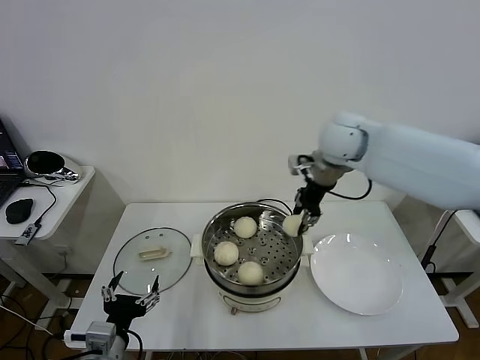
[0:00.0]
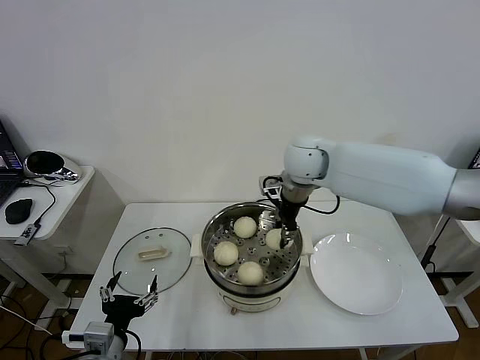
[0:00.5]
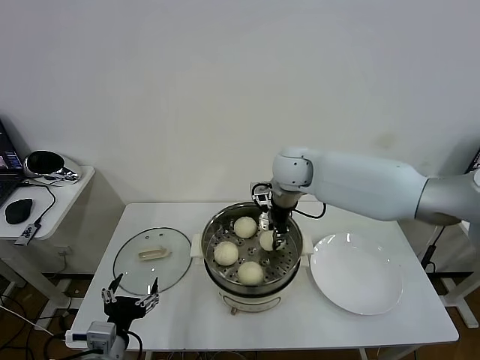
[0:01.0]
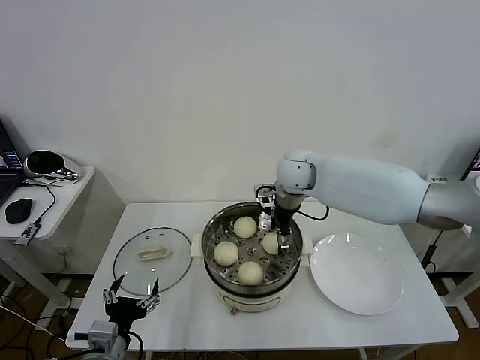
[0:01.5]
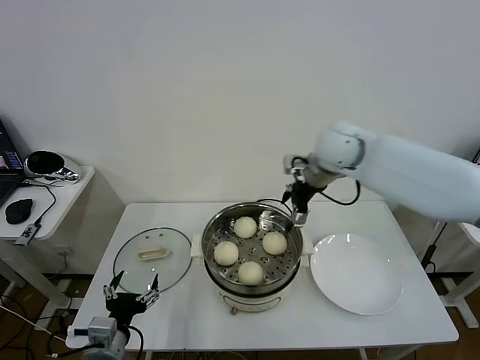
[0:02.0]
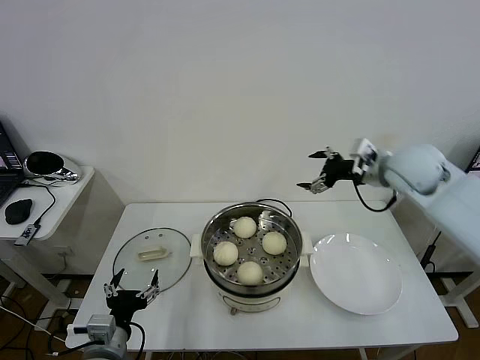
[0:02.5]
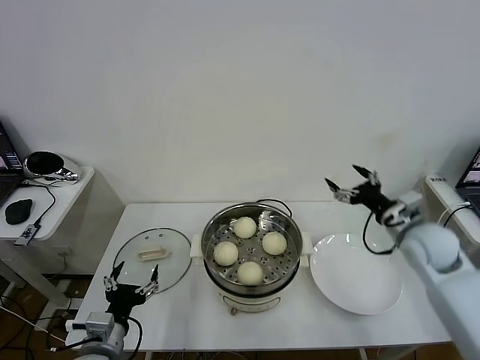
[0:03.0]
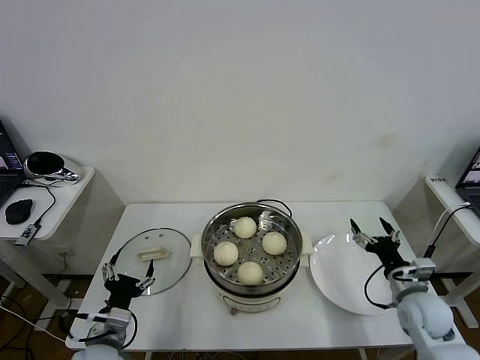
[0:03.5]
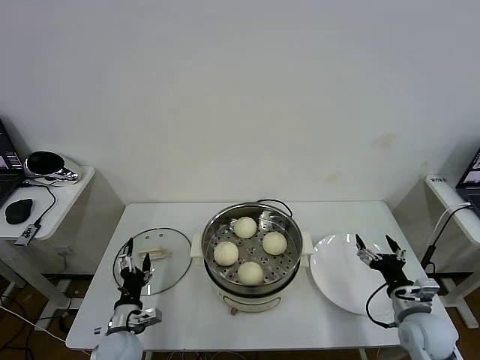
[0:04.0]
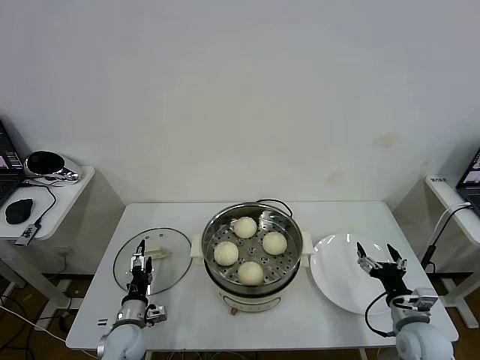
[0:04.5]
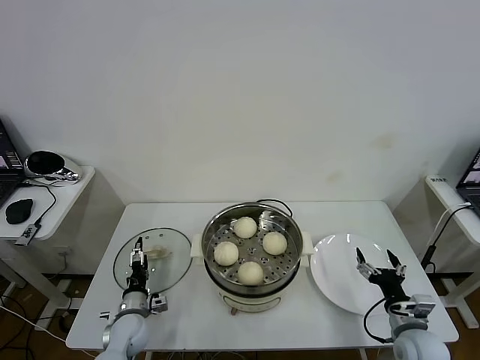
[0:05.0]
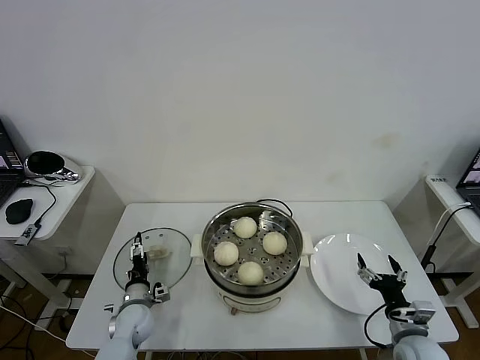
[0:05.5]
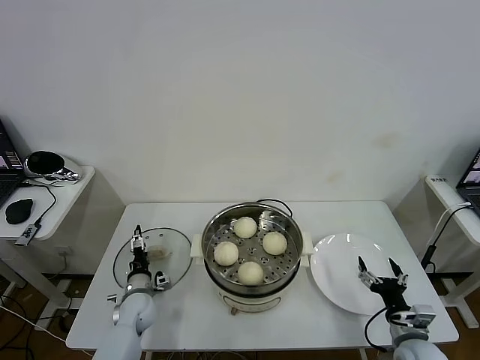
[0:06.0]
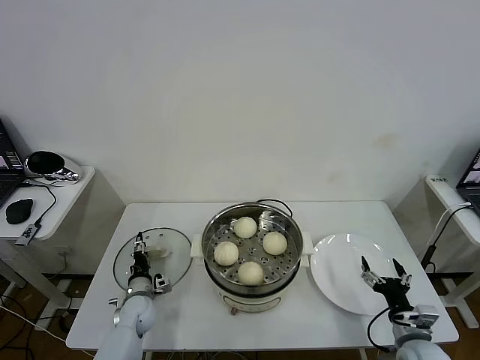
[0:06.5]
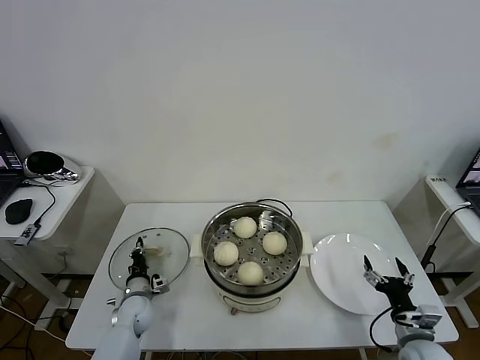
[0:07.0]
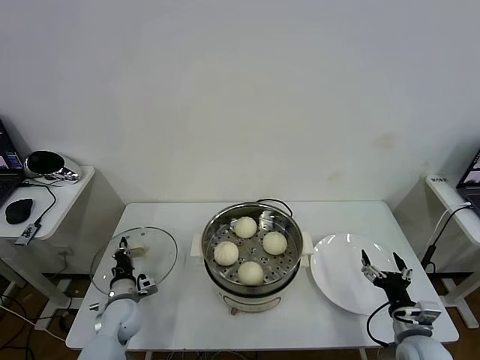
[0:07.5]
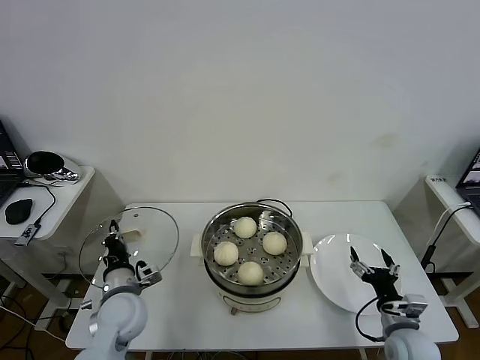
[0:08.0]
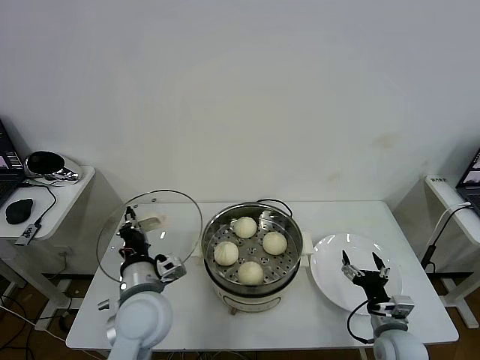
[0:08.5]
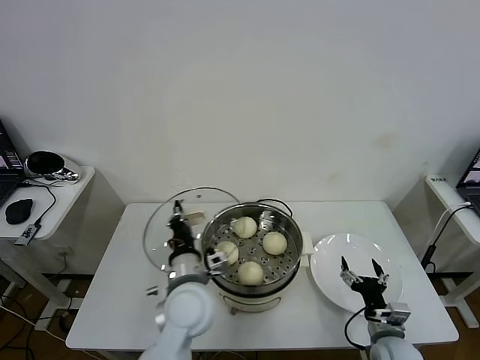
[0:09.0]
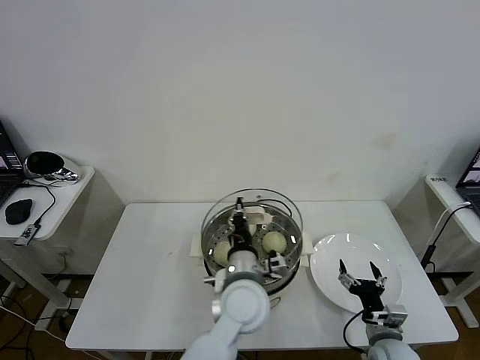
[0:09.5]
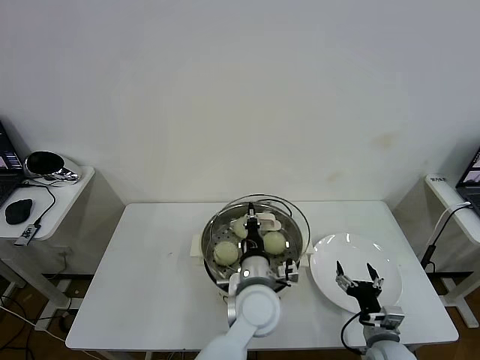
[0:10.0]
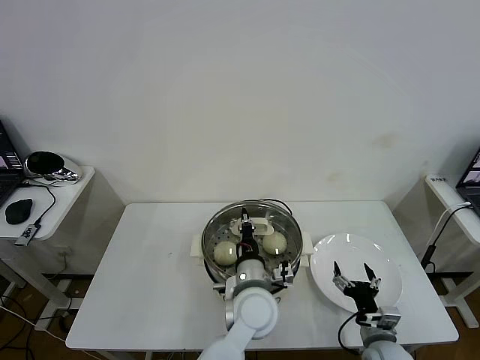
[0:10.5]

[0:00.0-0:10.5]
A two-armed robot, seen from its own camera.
Task of the whole recording: take steamed baozi put them in steamer then cover it.
Step, 0:02.0 to 0:07.0: Grasp the pot lid with left gripper.
0:00.0 to 0:02.0: The right gripper travels downward and back again, approximately 10 cm each way, and opens up.
0:02.0 to 0:04.0: The left gripper travels downward and forward by approximately 15 cm. Meanwhile the right gripper moves downward, backward and to the right, approximately 40 cm.
0:04.0 to 0:06.5: The right gripper changes place by about 5 cm. The left gripper goes some 15 cm forward and downward.
0:06.5 to 0:08.5: The left gripper heads upward and to the right, covering some 25 cm, and closes.
0:08.5 to 0:10.5: The left gripper moves to the right, about 20 cm.

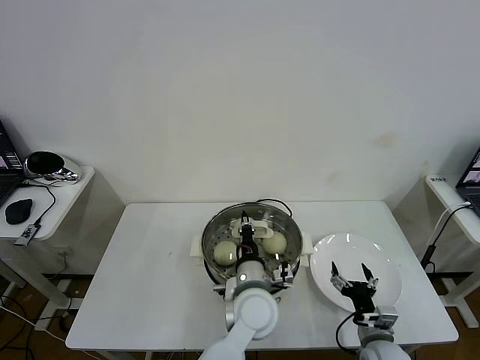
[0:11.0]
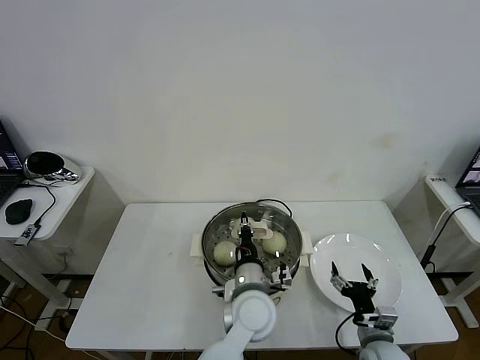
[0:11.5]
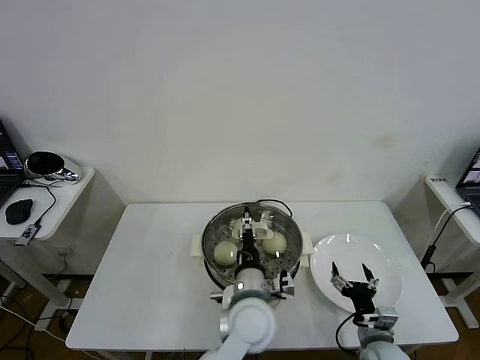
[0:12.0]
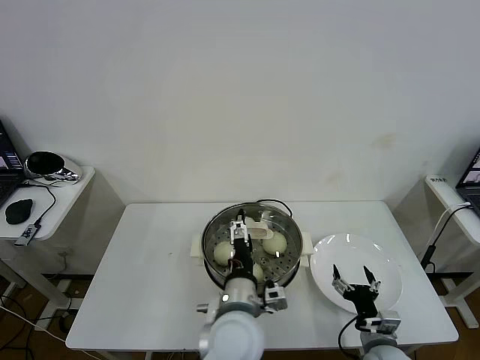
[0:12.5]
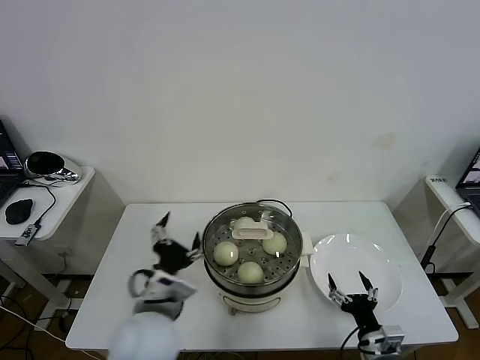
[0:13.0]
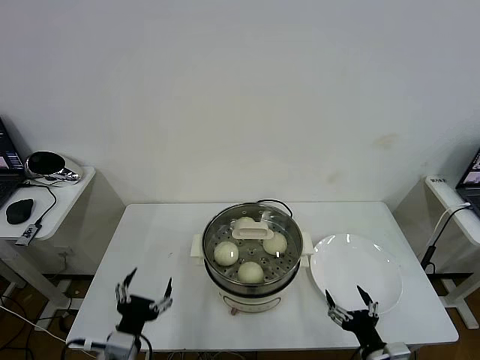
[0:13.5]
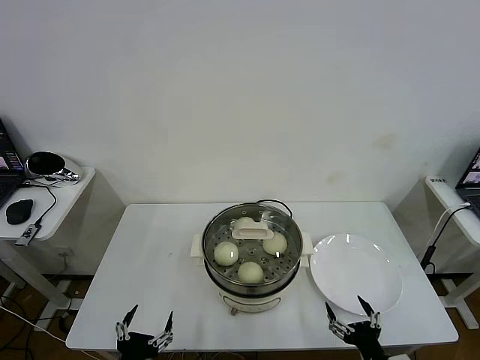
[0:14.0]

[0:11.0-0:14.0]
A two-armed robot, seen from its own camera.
Task of the whole recording: take steamed baozi put them in steamer then cover it.
0:11.0 to 0:12.5: The left gripper travels backward by approximately 5 cm, and opens.
0:12.5 to 0:14.0: The right gripper heads backward, covering some 10 cm; the left gripper shifts some 30 cm to the left and backward.
